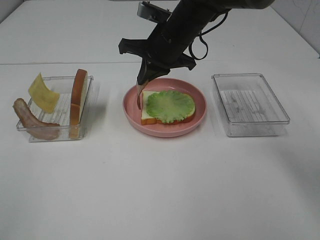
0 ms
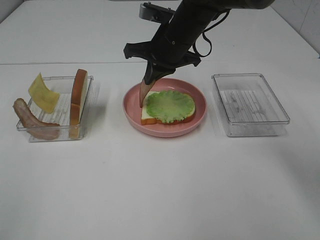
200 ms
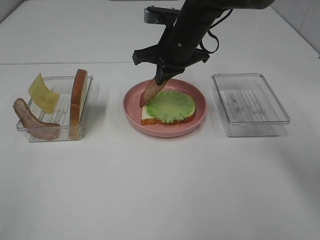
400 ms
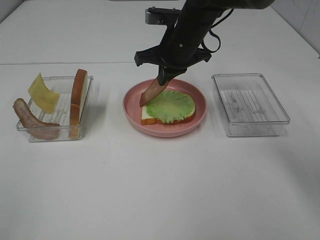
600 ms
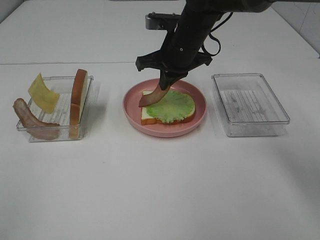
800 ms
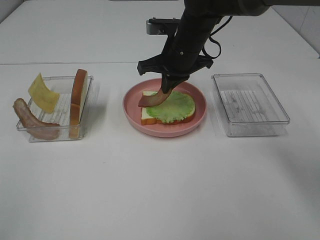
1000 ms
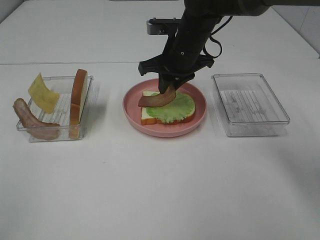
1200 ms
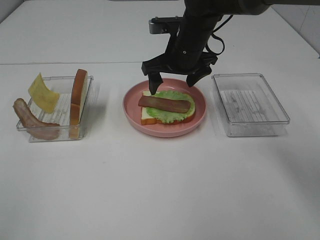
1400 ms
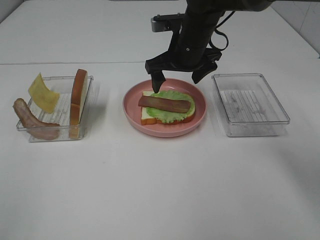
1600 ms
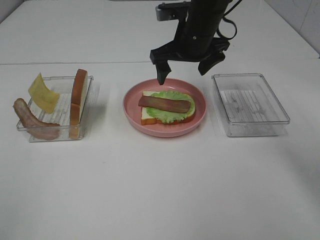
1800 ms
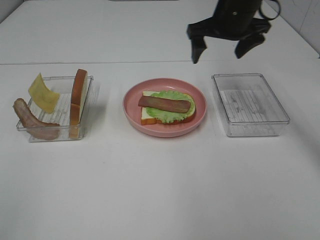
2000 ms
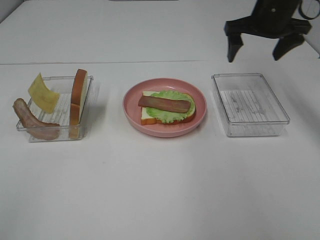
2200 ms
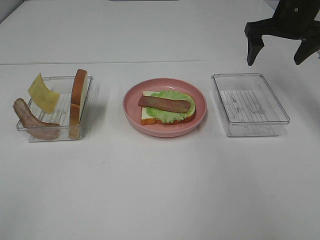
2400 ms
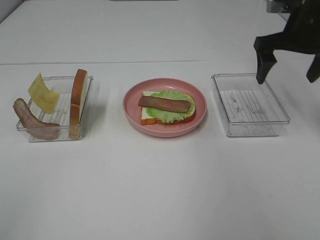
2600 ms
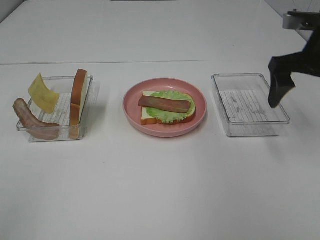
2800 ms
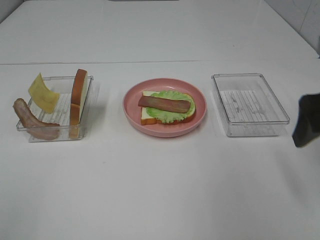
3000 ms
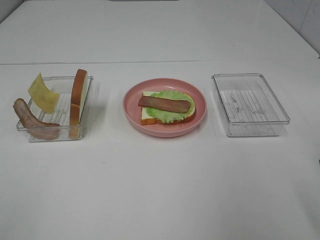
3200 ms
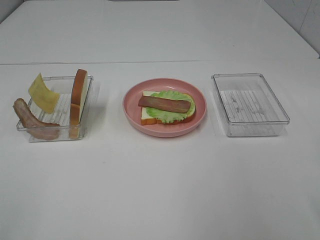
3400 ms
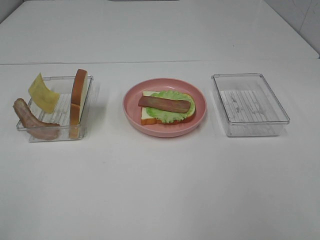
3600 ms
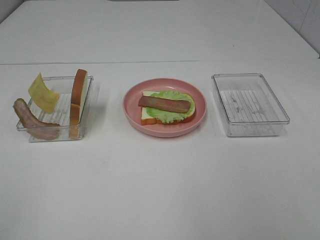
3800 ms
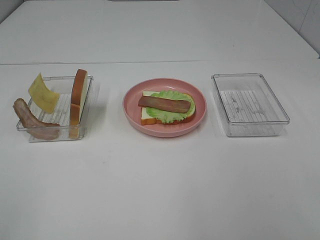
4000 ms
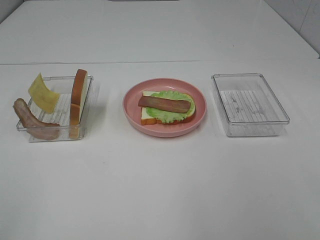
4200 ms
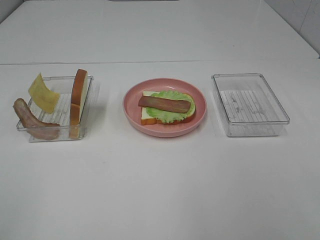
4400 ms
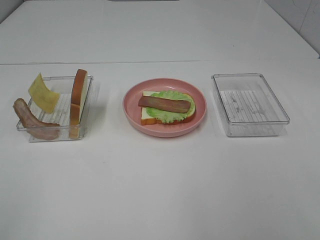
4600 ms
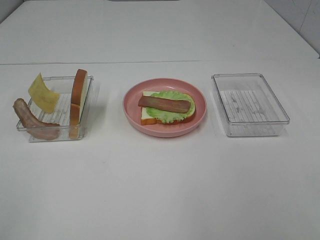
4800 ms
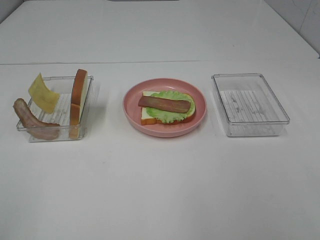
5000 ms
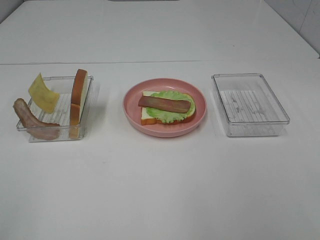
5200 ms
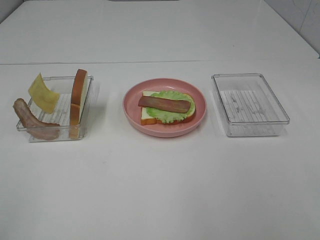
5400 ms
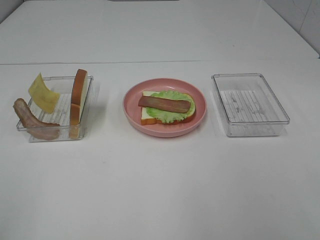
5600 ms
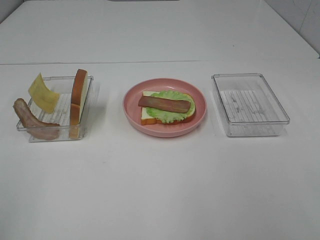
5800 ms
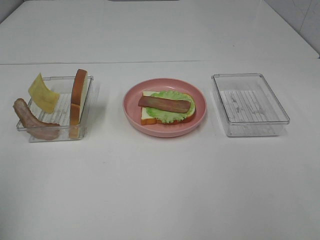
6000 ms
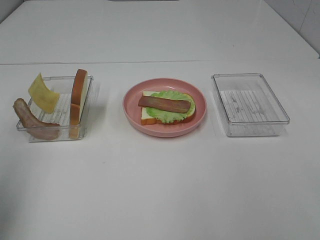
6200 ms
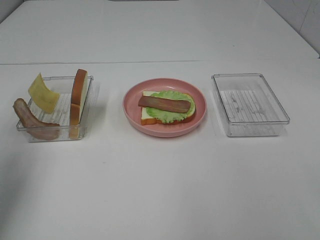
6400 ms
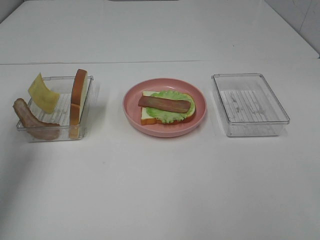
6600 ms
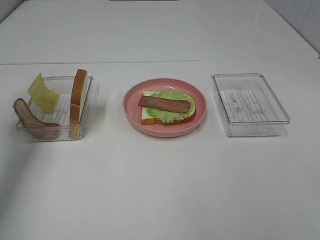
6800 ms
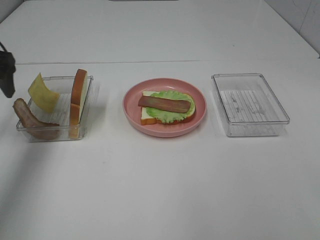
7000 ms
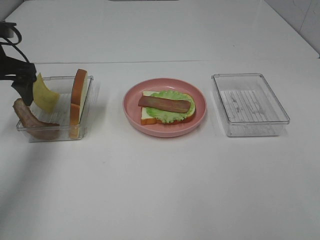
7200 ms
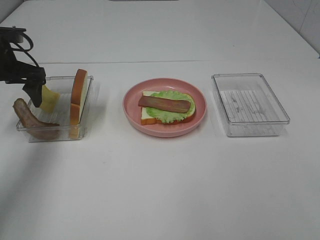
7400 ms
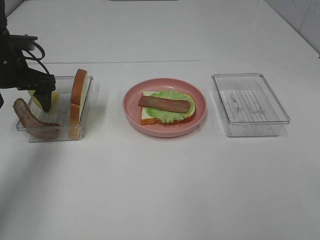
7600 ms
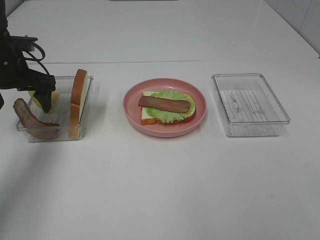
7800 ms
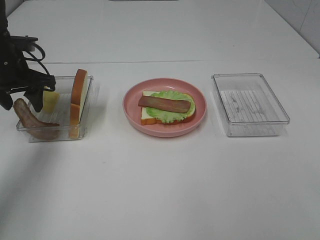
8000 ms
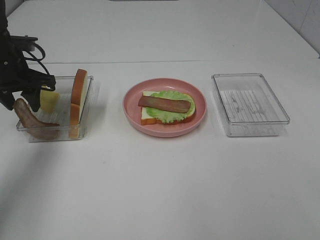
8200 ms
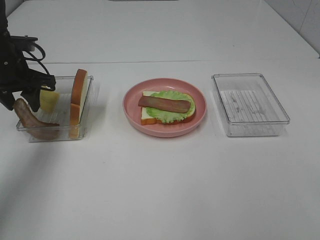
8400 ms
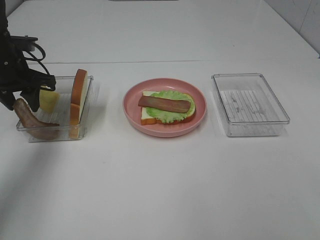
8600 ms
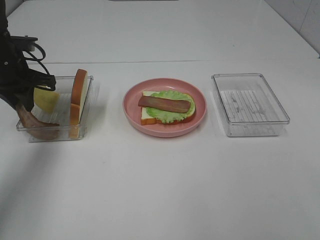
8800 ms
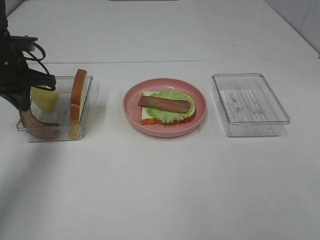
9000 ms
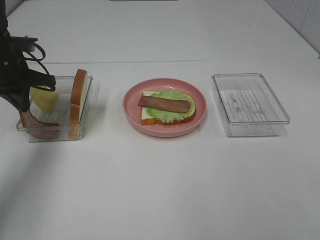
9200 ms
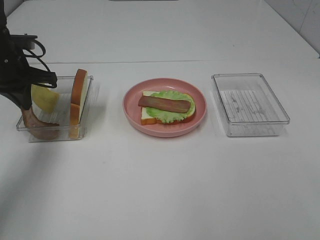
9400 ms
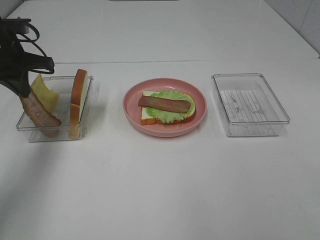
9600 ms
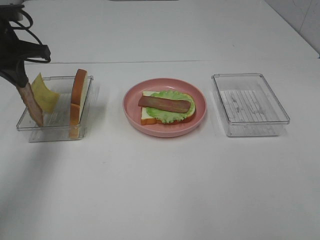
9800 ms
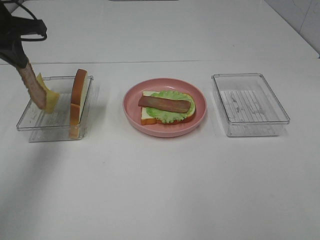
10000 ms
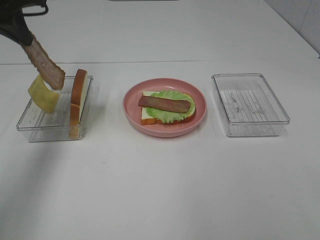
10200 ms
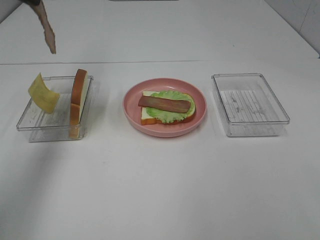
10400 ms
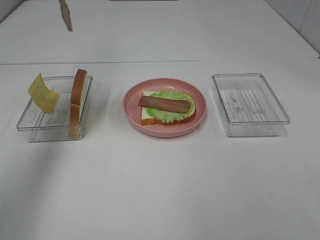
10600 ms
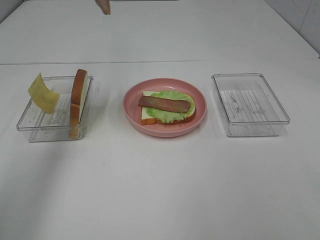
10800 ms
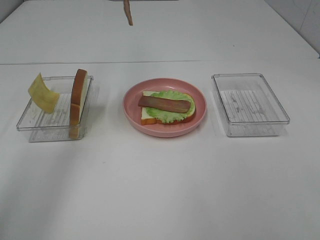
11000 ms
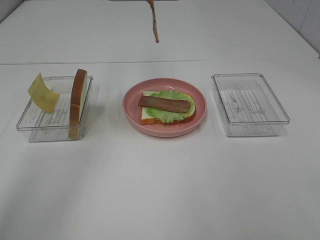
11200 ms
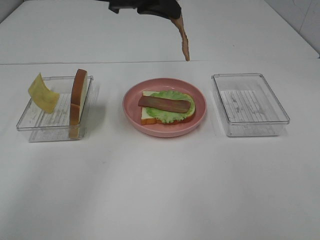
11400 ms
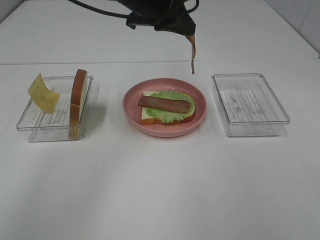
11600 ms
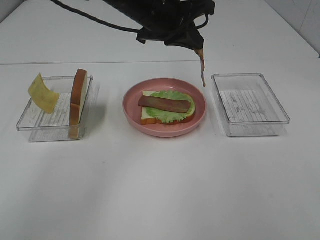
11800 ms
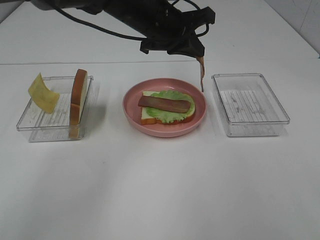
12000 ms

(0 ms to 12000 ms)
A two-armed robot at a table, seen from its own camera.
Task of the whole recording: Make sandwiches.
Step, 1800 ms - 9600 ms: Left hand:grab the bacon.
0 ms - 1600 ms: The right gripper opens up.
1600 ms - 3000 ms: The right gripper travels backward and to the right by approximately 30 cm.
3000 ms - 4400 ms: The right gripper goes some 20 cm backward.
6000 ms - 7600 ms: The left gripper heads forward, covering approximately 30 cm.
7600 ms - 9000 ms: The left gripper closes its fingers.
9000 ms - 10400 ms: The left gripper shifts about 20 cm upward.
10400 ms - 12000 ms: The left gripper heads to the right and downward, covering approximately 25 cm.

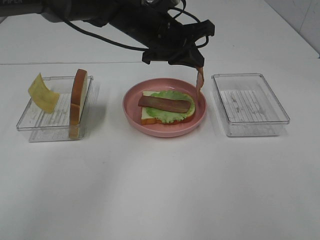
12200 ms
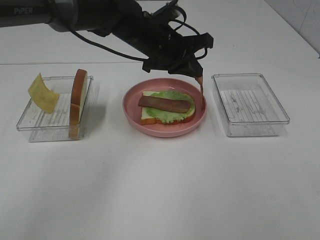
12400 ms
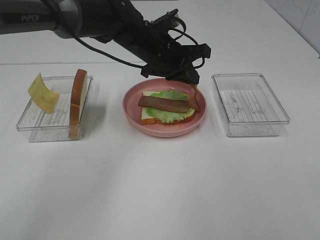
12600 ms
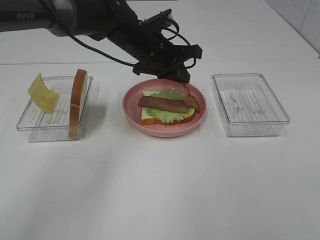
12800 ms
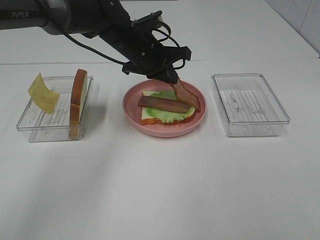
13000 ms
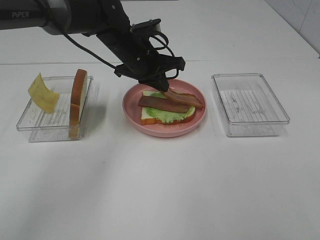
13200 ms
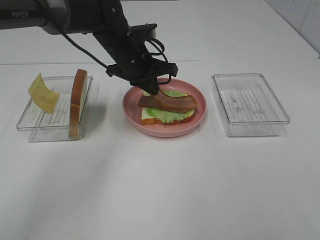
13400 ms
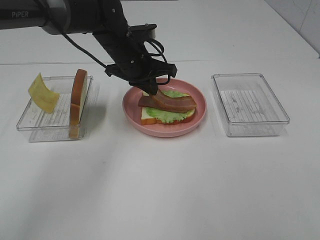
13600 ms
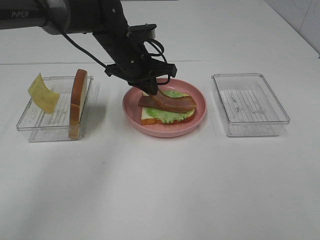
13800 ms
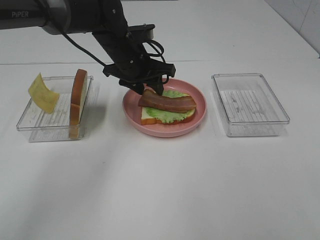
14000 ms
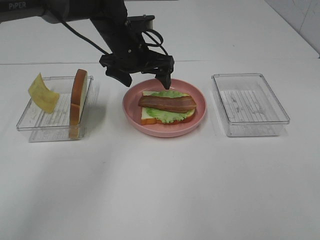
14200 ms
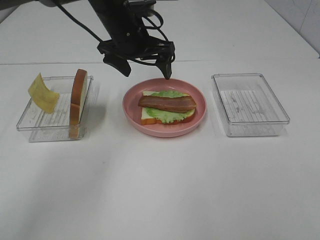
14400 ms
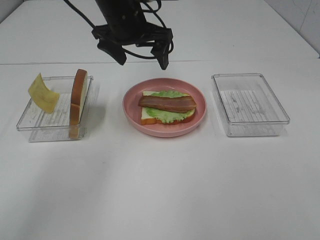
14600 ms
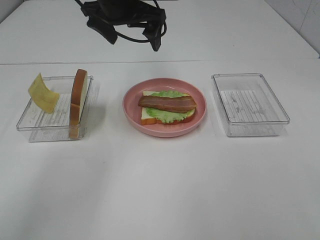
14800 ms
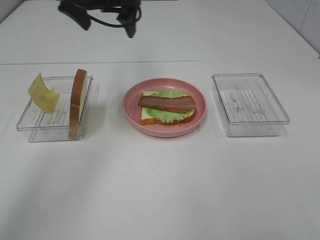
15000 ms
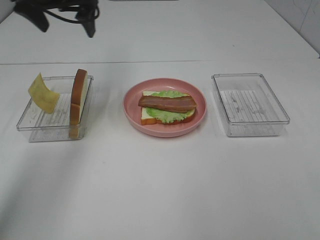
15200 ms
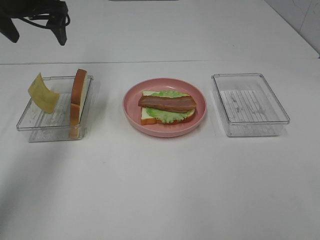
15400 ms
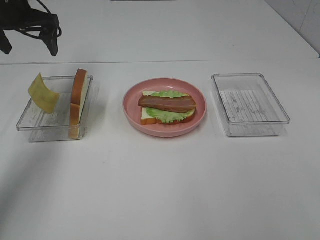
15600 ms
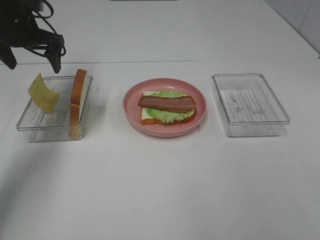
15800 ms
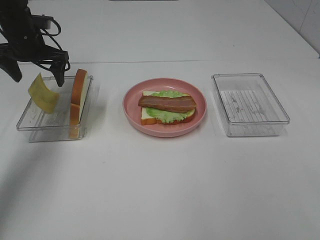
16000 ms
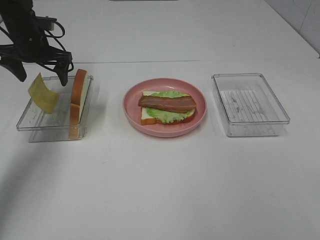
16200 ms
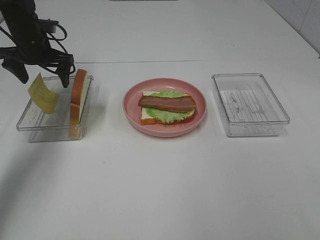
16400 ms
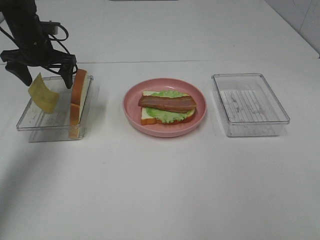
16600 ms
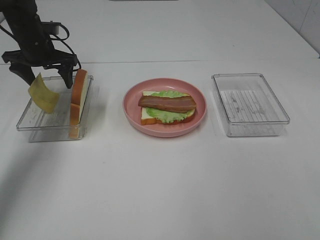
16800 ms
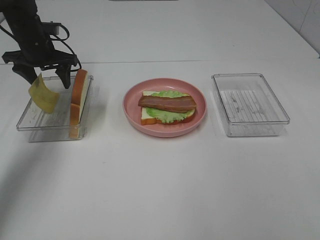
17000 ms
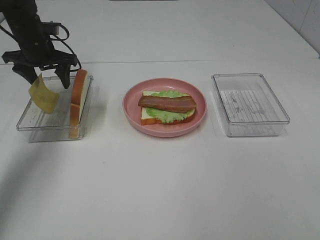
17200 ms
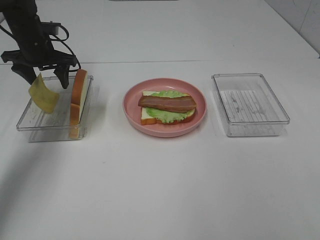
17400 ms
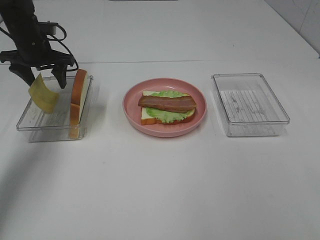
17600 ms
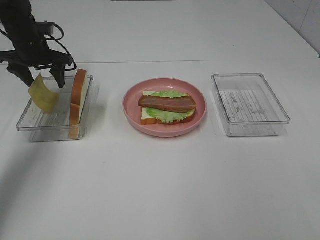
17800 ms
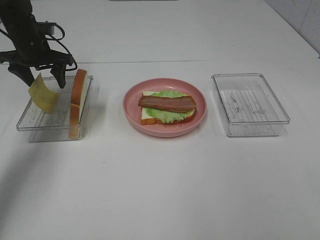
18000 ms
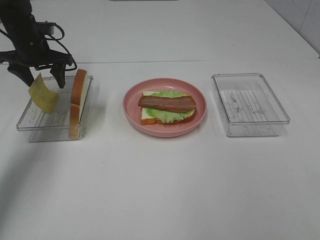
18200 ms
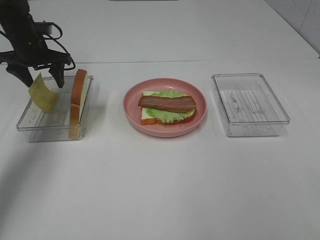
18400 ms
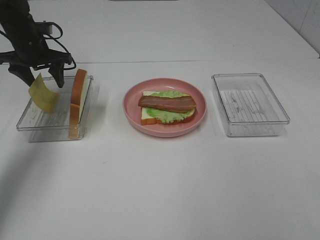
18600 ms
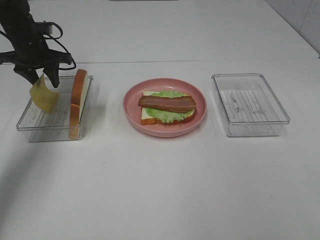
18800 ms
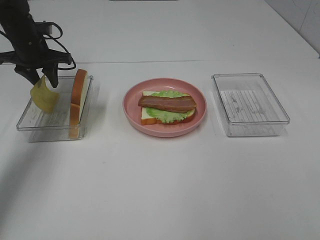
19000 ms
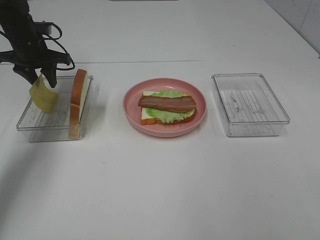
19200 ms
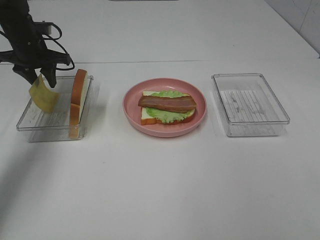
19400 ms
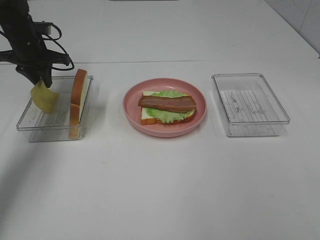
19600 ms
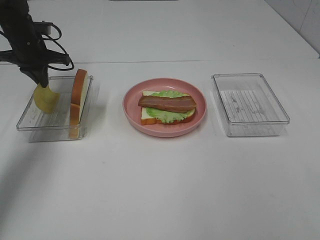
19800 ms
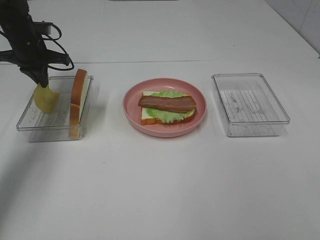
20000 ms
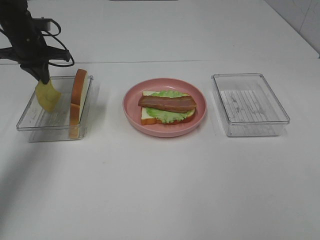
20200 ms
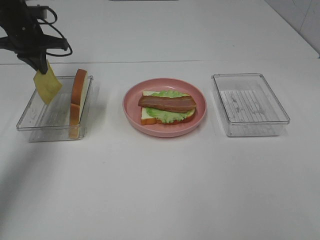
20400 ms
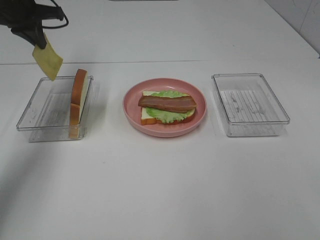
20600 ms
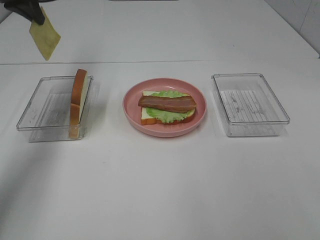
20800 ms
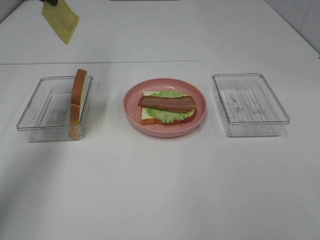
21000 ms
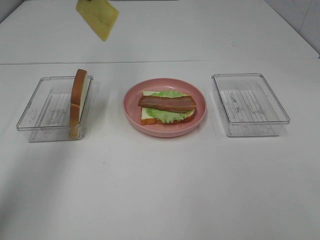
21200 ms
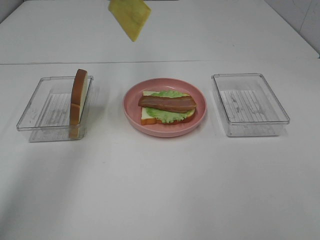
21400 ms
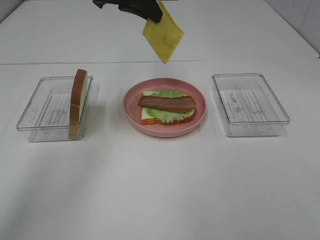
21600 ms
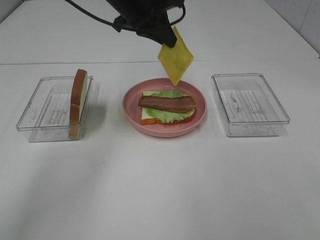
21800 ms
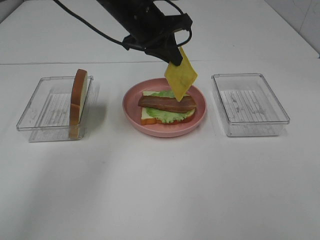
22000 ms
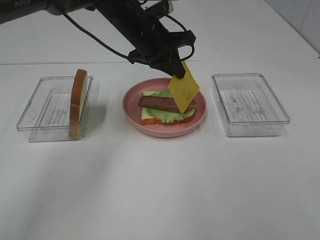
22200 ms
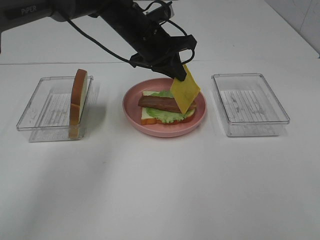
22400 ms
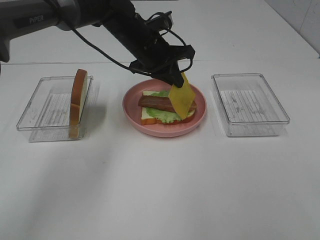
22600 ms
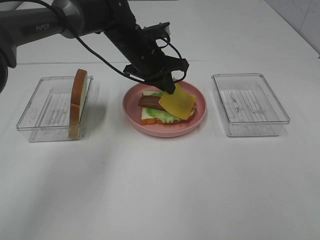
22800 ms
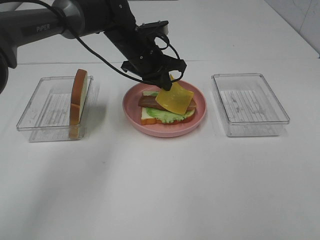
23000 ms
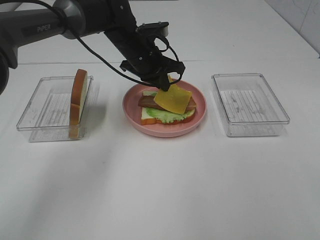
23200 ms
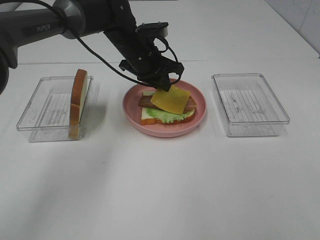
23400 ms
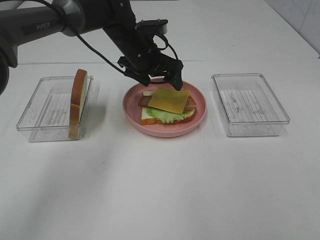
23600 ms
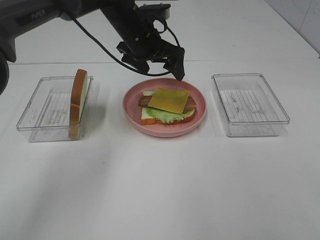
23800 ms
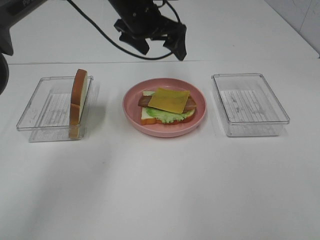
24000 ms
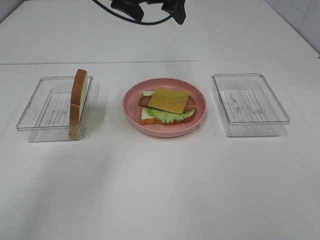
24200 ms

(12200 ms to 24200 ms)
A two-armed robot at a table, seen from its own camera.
Task of the whole recording: Make sandwiches.
Step, 12200 ms - 14200 ms: Left hand:place bacon on bacon.
Step, 14400 ms - 20200 ms: Left hand:grab the cheese slice.
Step, 20400 ms - 23800 ms: Left hand:place the cheese slice on top of the bacon.
12200 ms - 13800 ms: The left gripper ends up about 5 cm from where it was.
13800 ms - 15200 ms: The left gripper travels to the left and upward by roughly 20 cm, and opens its fingers.
15200 ms - 16600 ms: The left gripper heads downward, to the left and forward, covering roughly 15 cm.
16600 ms - 18200 ms: The two grippers keep their place.
18200 ms - 19800 ms: The left gripper closes its fingers.
19800 ms - 21200 ms: The left gripper moves upward and to the right, approximately 20 cm.
21200 ms - 22600 ms: The left gripper goes about 25 cm downward and to the right.
22600 ms - 24200 ms: The left gripper goes approximately 15 cm upward, and opens up.
